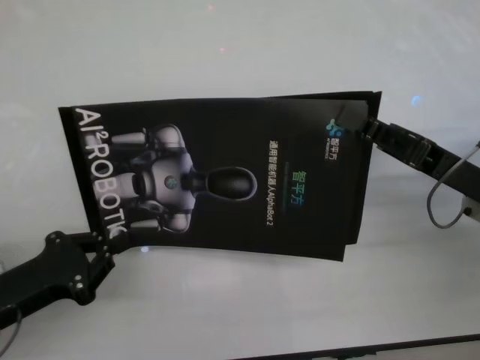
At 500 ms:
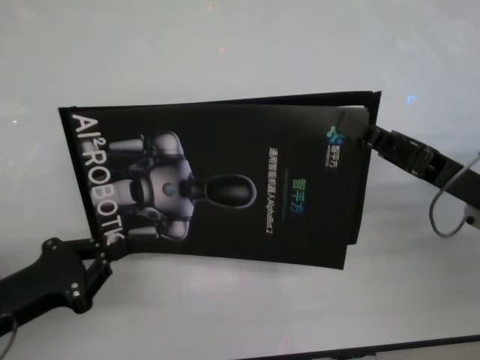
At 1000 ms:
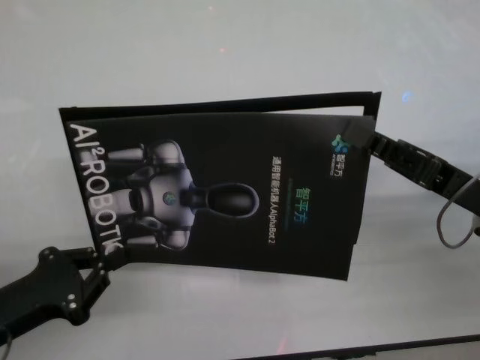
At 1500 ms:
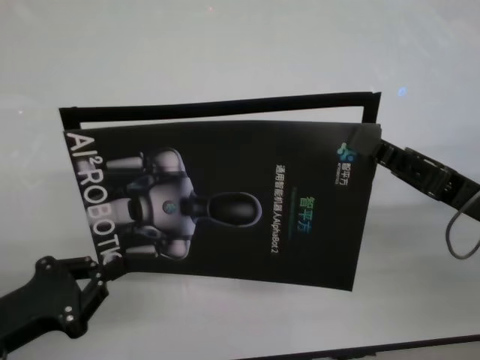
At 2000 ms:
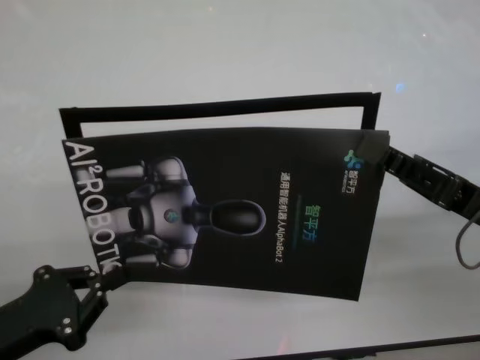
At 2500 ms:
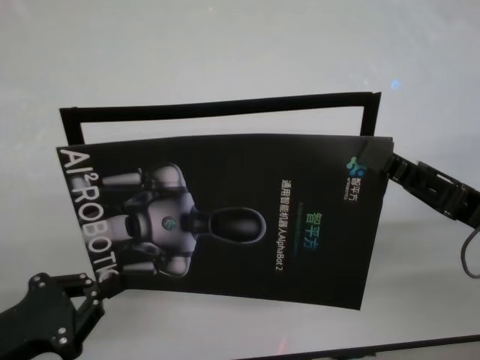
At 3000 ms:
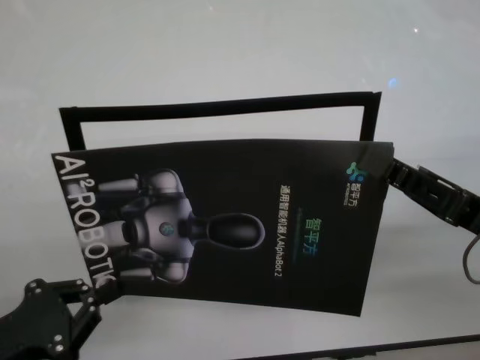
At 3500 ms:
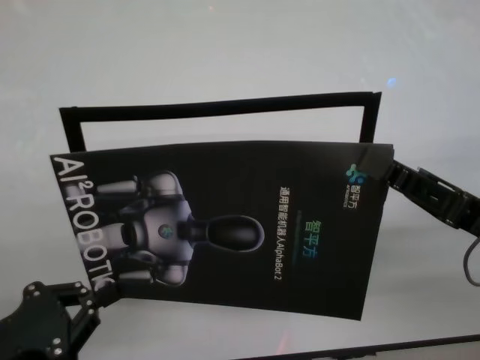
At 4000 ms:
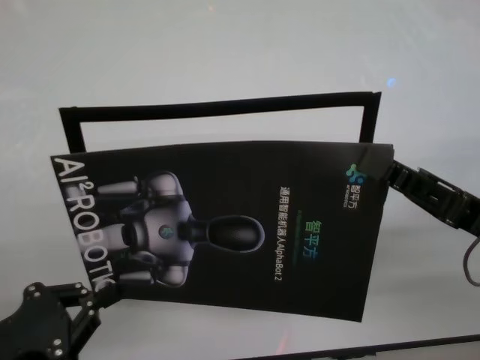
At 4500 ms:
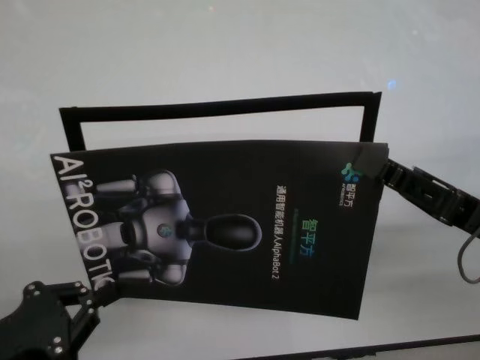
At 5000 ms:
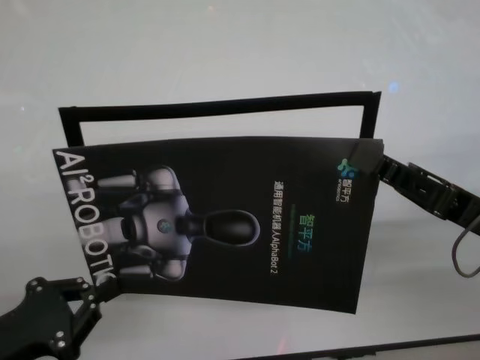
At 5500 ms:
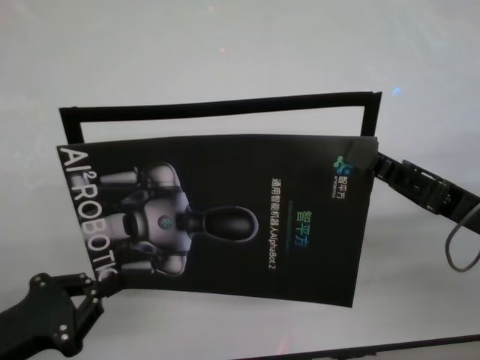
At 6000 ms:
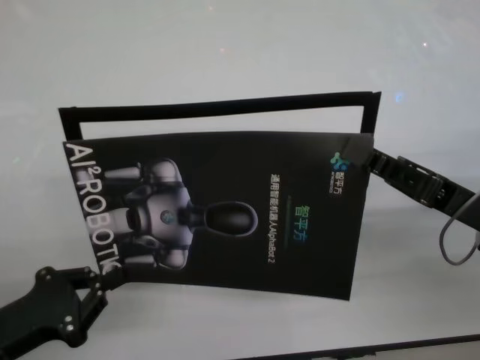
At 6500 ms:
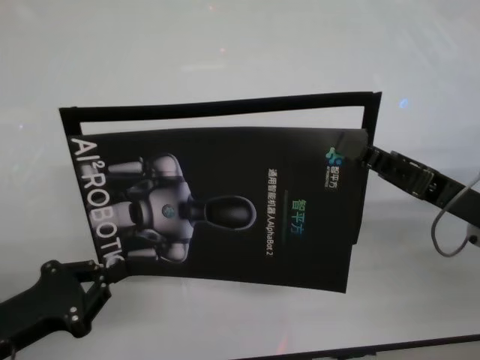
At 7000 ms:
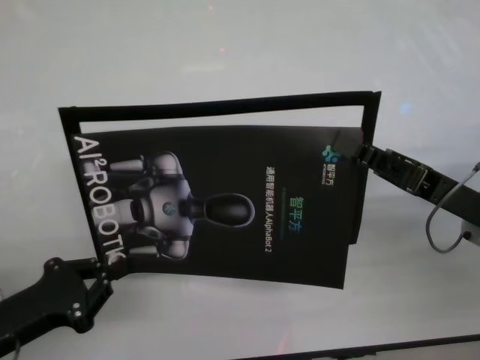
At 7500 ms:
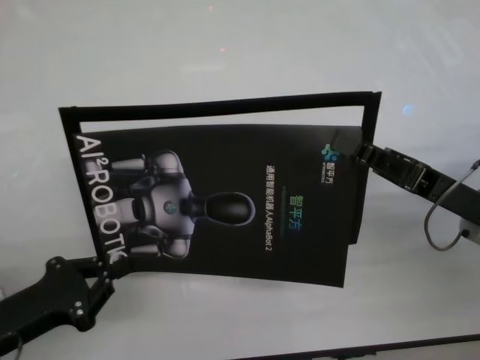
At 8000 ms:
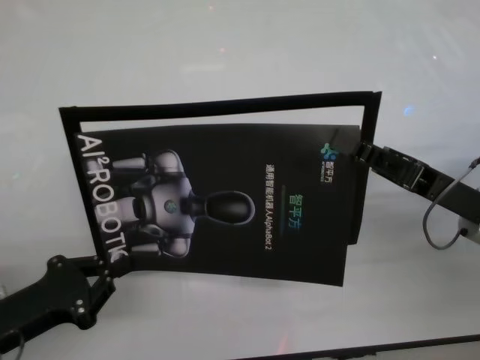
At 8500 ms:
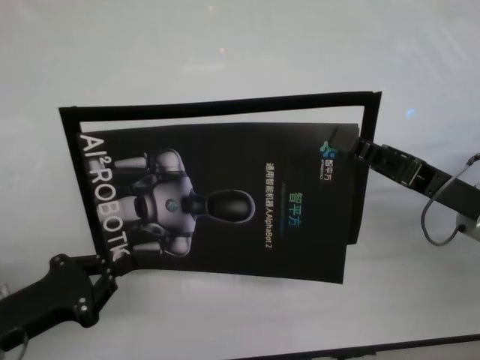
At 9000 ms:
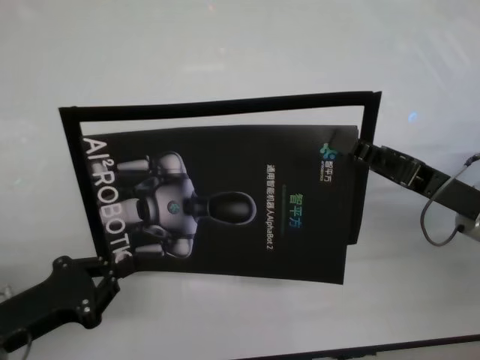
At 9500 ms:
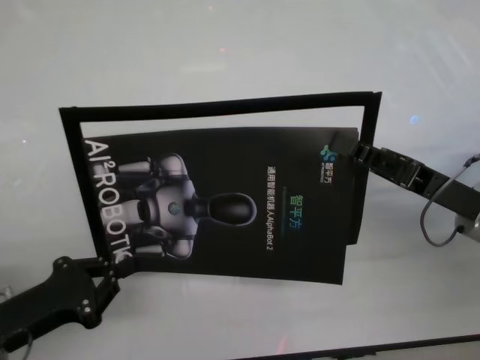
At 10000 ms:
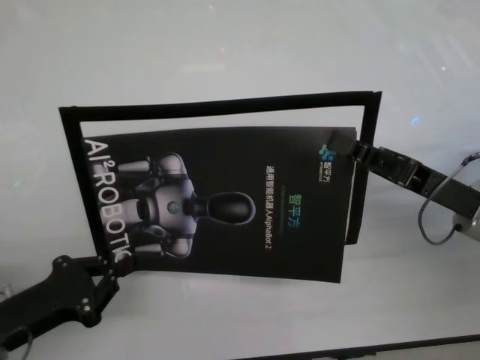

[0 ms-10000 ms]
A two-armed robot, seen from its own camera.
Task of the whole recording: stick the poster on the table by hand.
Step, 0 ms to 9000 ms: Stick the advertisement in the top-right corner area with both grippers.
